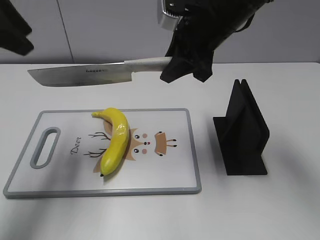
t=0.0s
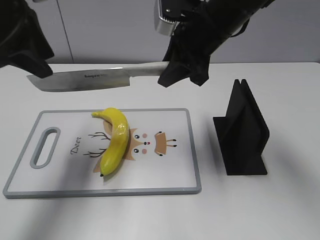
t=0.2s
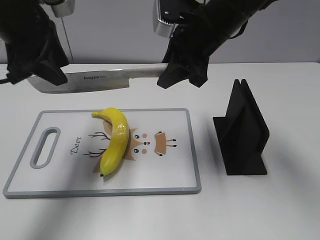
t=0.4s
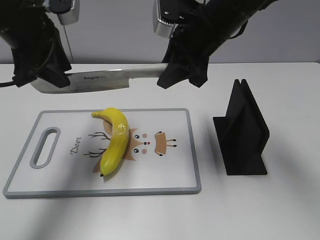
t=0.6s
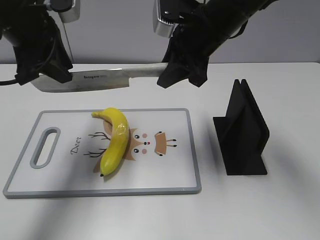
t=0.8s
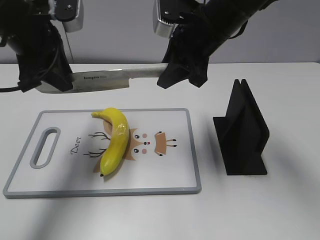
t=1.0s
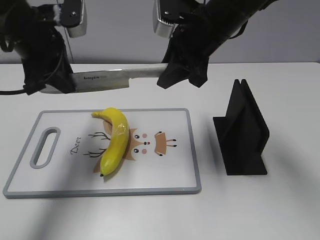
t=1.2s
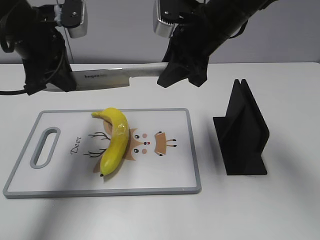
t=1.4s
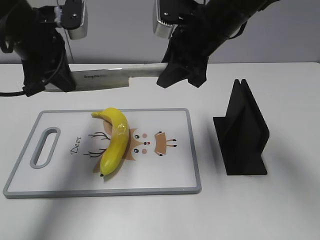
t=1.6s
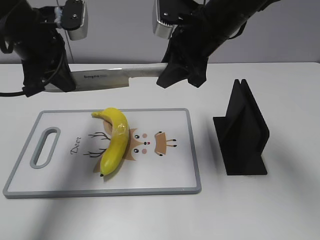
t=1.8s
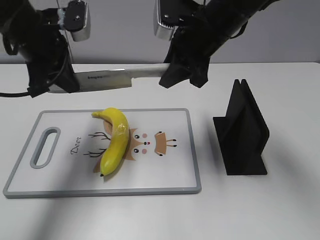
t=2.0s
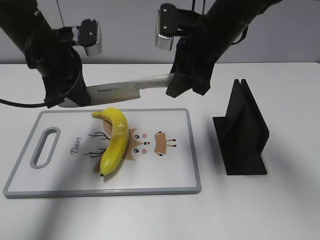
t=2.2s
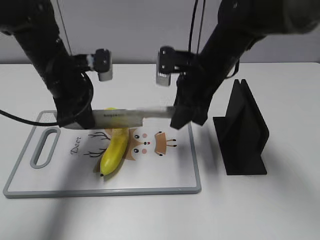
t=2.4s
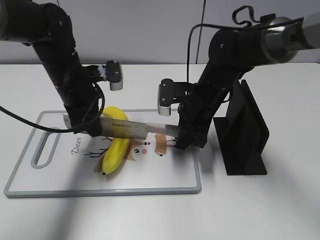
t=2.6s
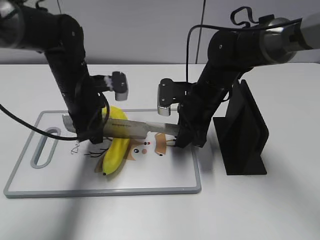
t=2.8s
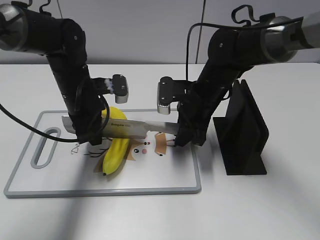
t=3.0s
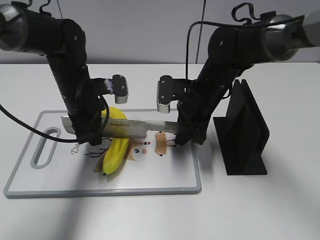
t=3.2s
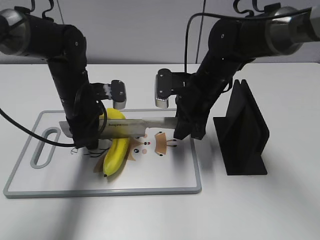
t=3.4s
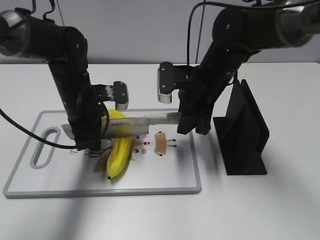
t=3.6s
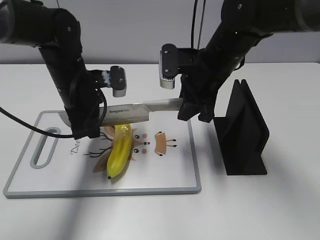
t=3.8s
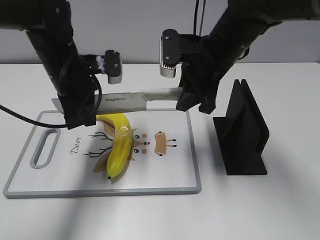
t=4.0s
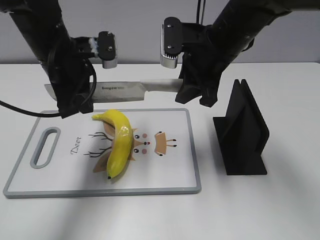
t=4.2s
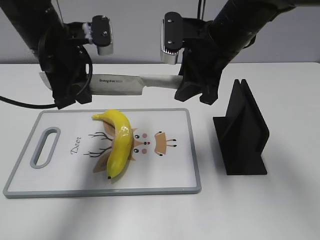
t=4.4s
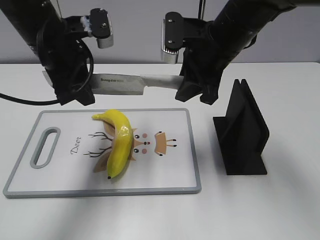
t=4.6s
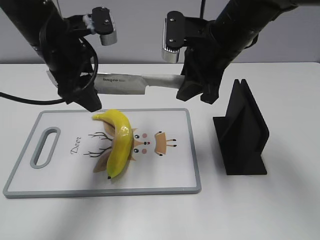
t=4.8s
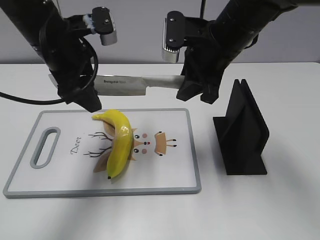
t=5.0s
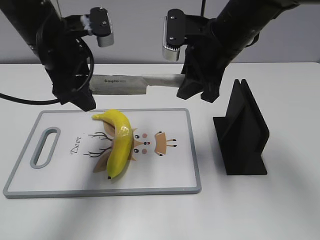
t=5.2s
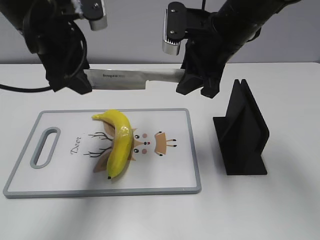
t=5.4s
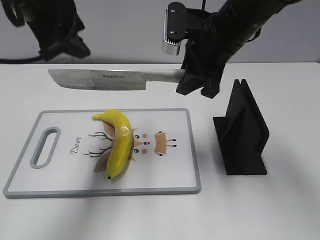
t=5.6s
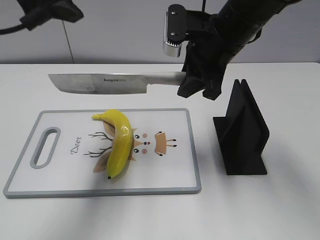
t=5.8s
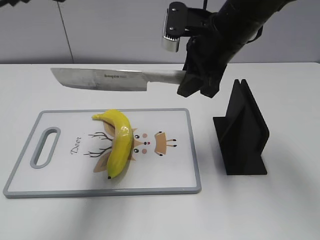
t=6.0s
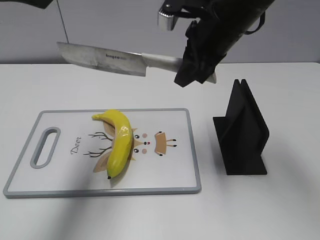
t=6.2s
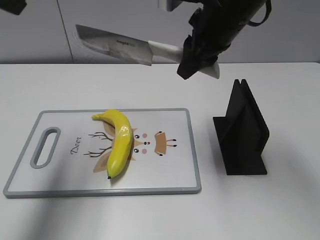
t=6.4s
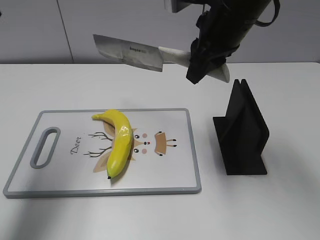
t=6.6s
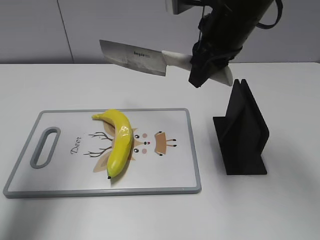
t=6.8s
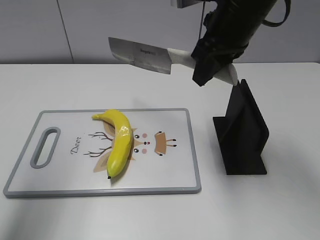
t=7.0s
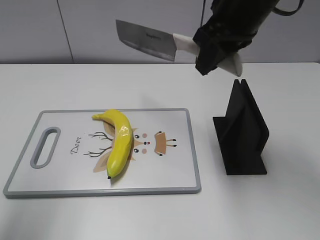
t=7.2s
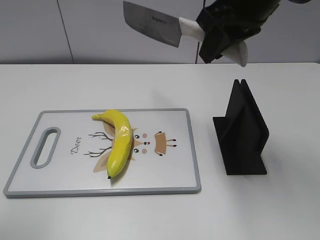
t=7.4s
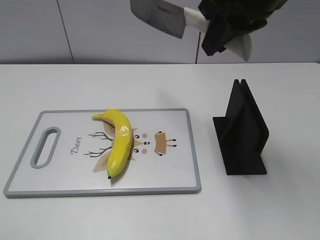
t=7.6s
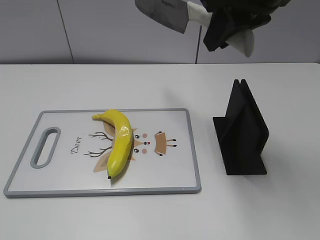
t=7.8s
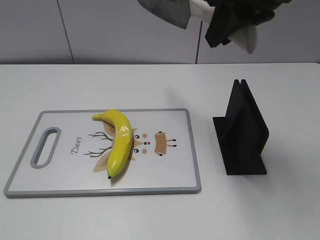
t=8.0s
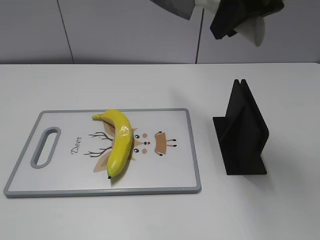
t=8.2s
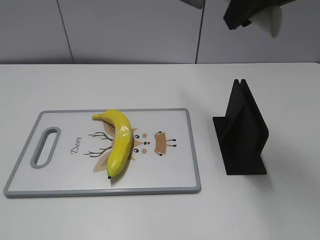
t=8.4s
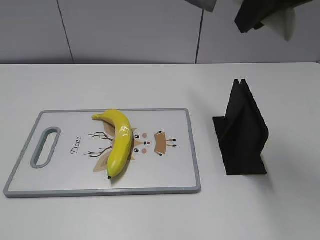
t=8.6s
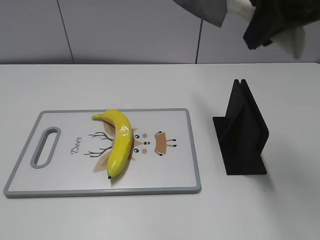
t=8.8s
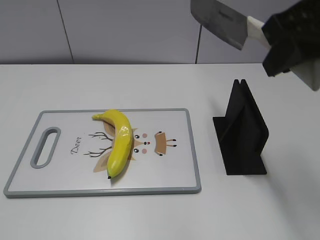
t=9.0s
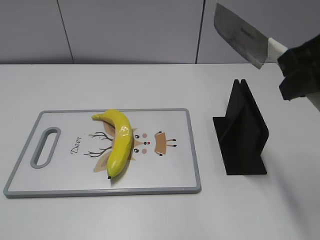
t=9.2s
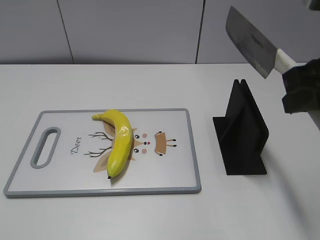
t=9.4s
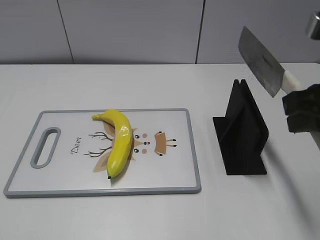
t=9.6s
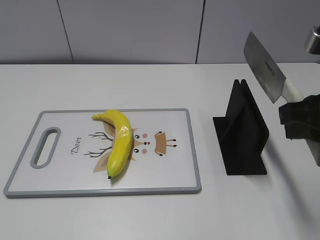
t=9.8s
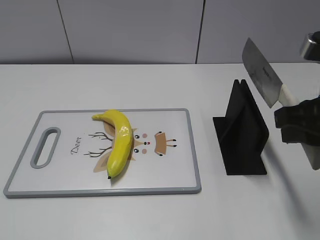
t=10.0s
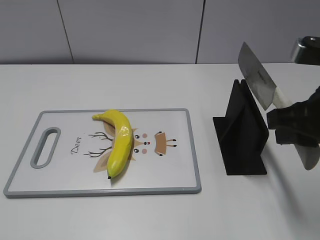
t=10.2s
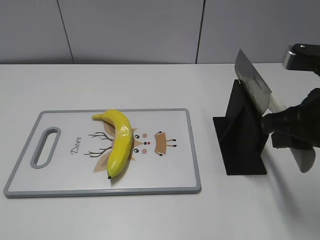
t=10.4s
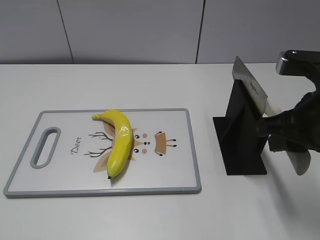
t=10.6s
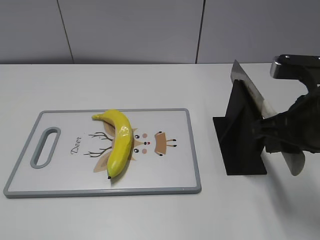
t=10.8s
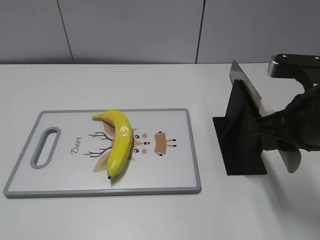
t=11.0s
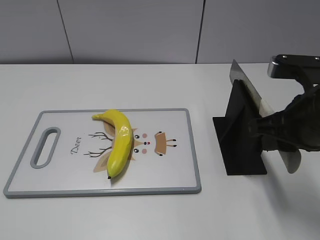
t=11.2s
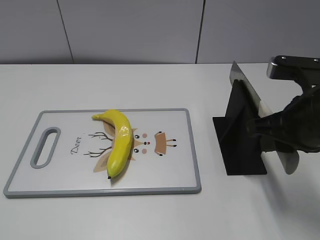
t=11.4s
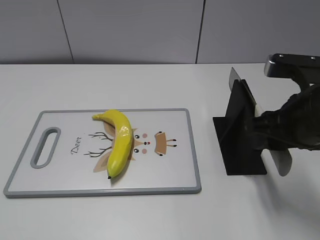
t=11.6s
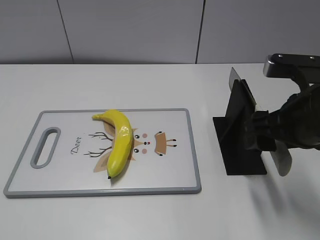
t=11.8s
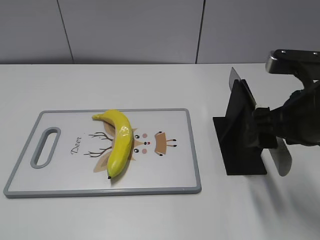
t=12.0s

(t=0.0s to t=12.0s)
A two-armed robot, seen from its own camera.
Task of the whole recording: cut plastic banana.
Step, t=0.0s - t=4.8s: Lift the knife with your right hand.
Step, t=5.0s - t=7.0s: Cut the banana with your right hand.
Step, t=7.2s - t=8.4s: Lift the knife with your right hand.
t=0.0s - t=1.6s: The left gripper travels downward and to the right by roughly 10 cm, and closes up.
t=1.6s - t=3.0s: The two grippers go some 15 cm downward.
t=3.0s - t=4.4s: The grippers both shift upward by approximately 10 cm.
t=4.4s - t=6.0s: The left gripper is displaced upward by approximately 15 cm, and opens up.
t=6.0s - t=7.6s: The right gripper goes some 10 cm upward; the left gripper heads backward and to the left, covering roughly 25 cm.
t=7.6s - t=9.0s: The left gripper is displaced downward and backward by about 10 cm, while the right gripper goes approximately 10 cm backward and to the right.
t=9.0s - t=10.4s: The right gripper is displaced downward by about 10 cm.
t=10.4s - t=12.0s: The right gripper opens its fingers.

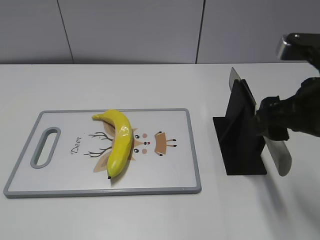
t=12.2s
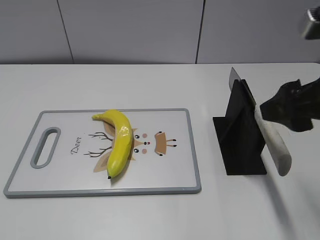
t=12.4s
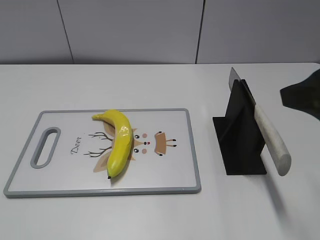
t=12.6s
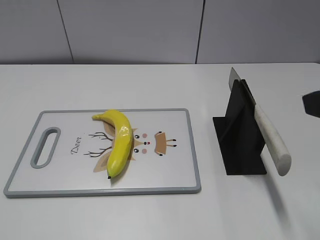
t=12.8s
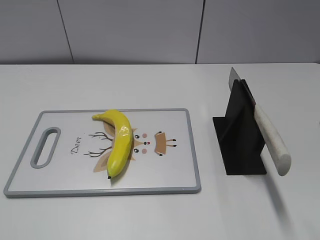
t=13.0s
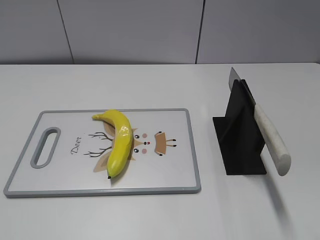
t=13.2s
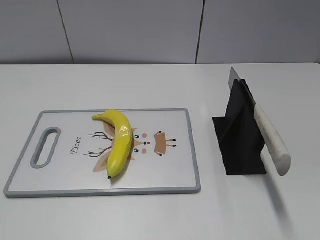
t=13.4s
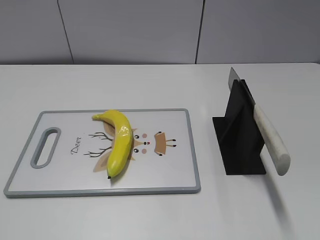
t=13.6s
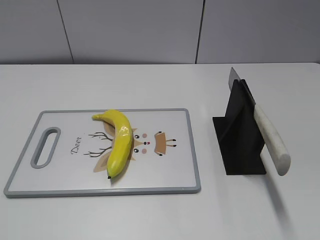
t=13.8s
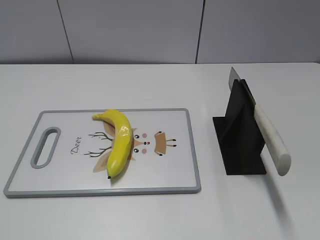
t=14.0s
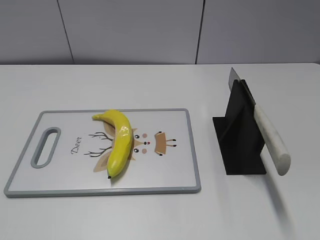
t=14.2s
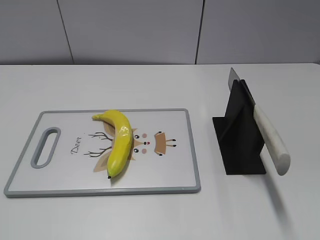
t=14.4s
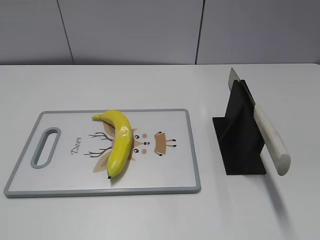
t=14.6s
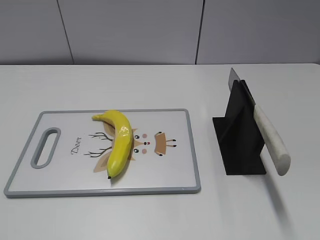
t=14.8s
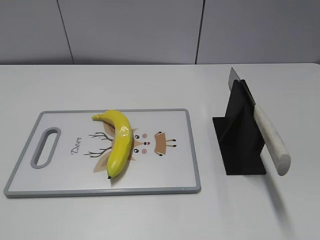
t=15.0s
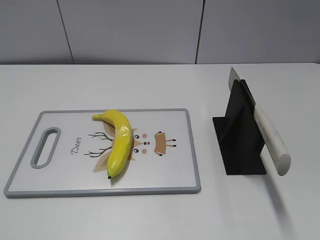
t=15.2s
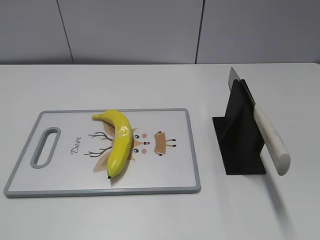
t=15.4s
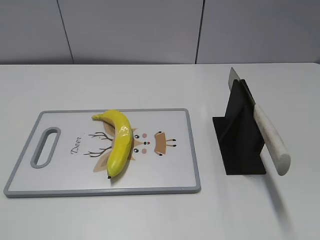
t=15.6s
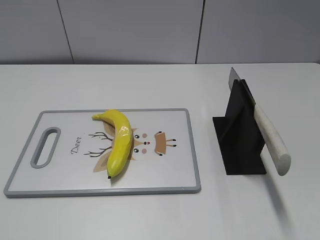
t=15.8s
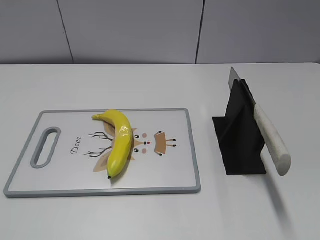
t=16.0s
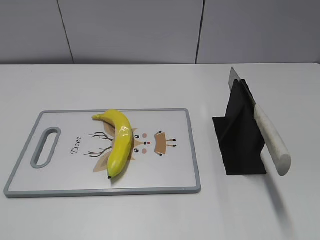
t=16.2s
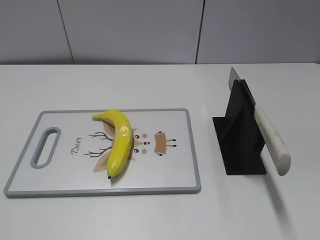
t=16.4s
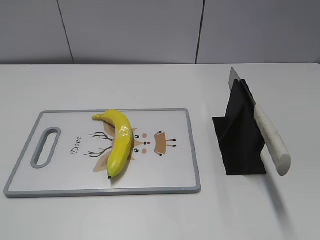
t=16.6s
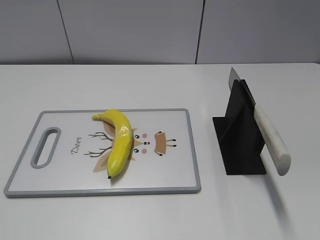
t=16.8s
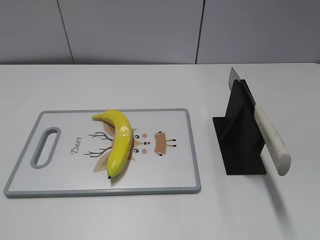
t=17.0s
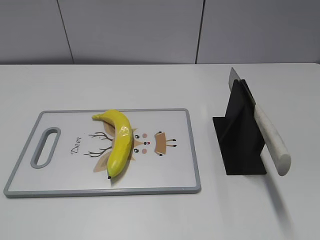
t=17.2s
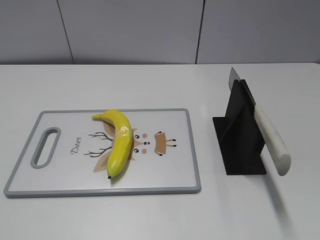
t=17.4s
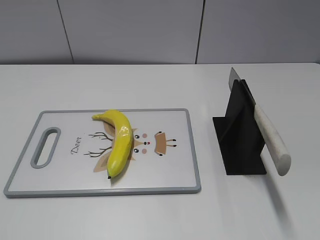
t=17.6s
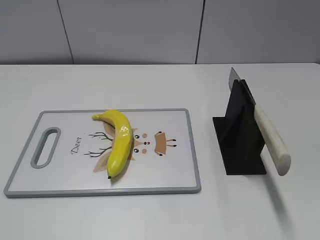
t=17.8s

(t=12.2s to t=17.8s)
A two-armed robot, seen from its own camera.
Task of the whole recording: cut plastic banana.
Step, t=12.2s - t=17.4s: Place the knife on the storage rack with your right hand.
t=12.2s - t=13.6s: The right gripper shifts some 20 cm backward and to the right.
t=16.4s - t=17.8s: The two grippers keep their place.
